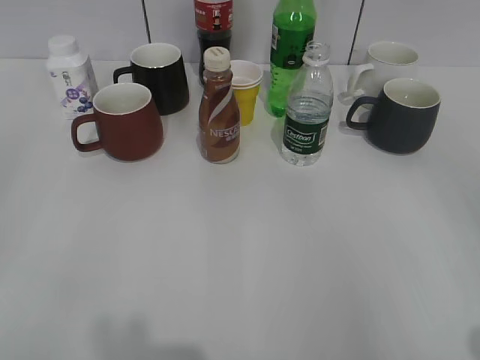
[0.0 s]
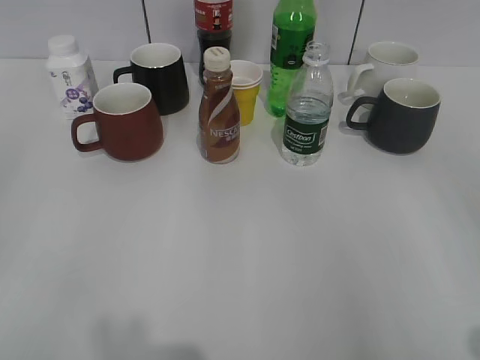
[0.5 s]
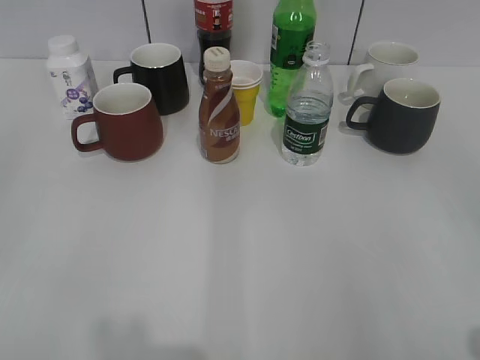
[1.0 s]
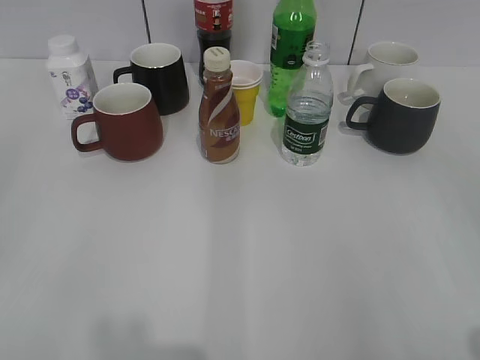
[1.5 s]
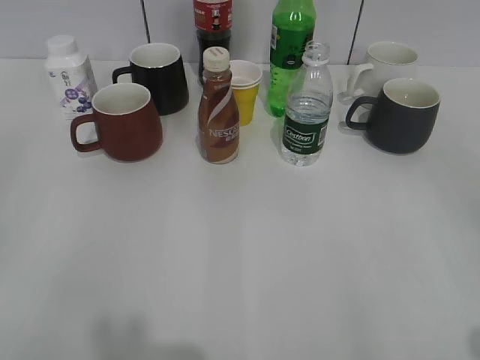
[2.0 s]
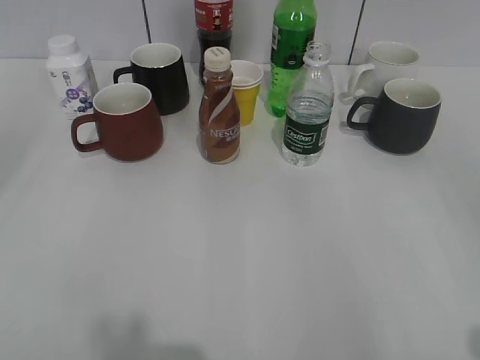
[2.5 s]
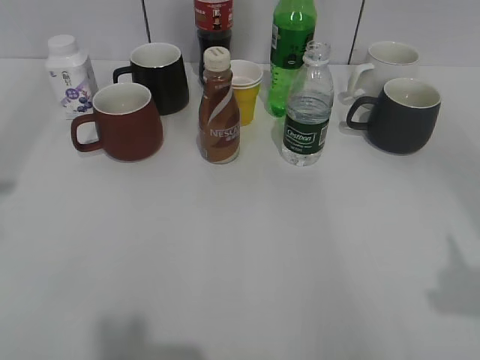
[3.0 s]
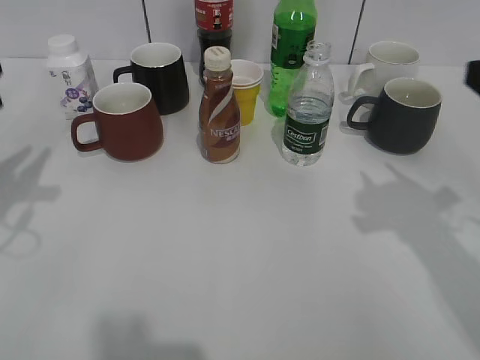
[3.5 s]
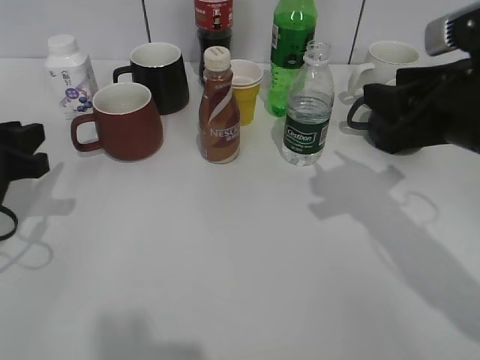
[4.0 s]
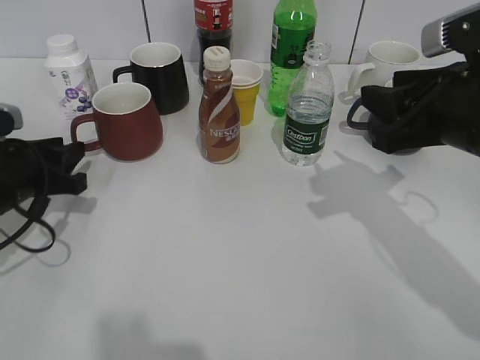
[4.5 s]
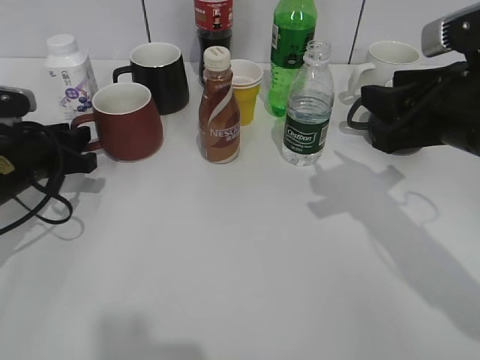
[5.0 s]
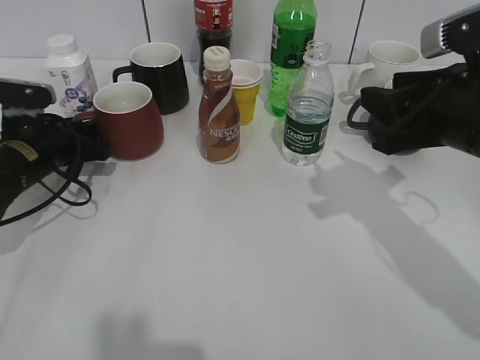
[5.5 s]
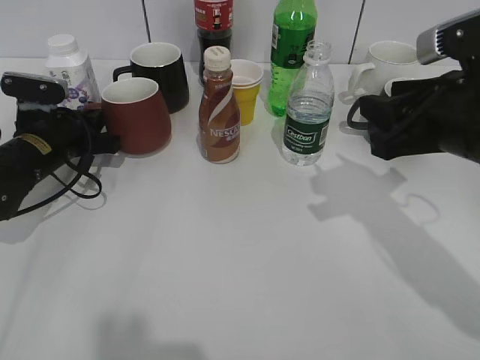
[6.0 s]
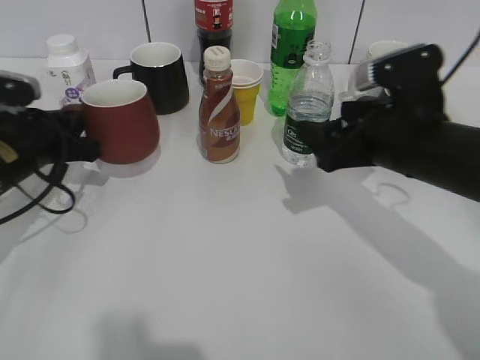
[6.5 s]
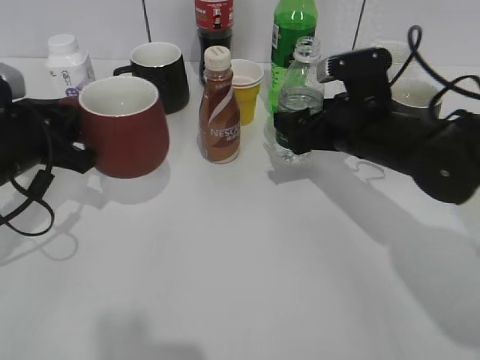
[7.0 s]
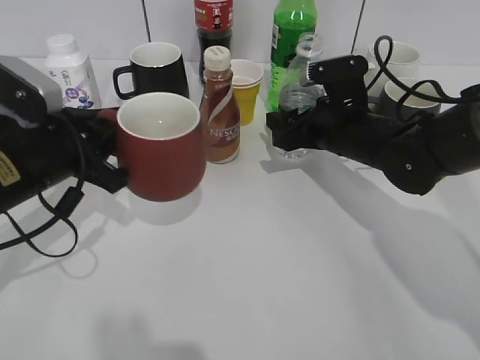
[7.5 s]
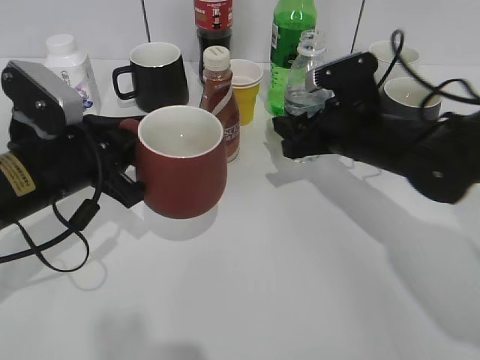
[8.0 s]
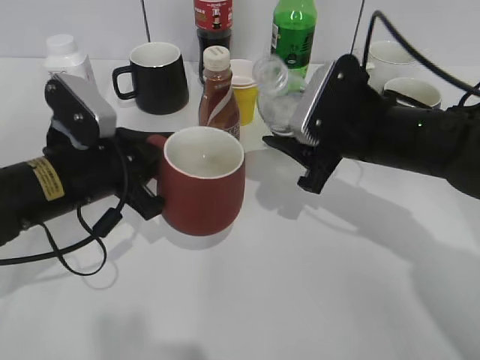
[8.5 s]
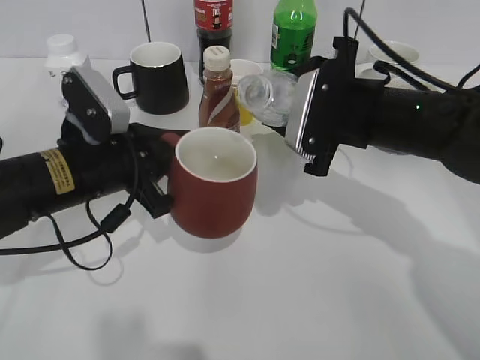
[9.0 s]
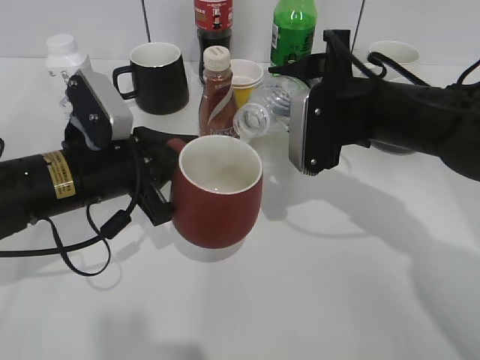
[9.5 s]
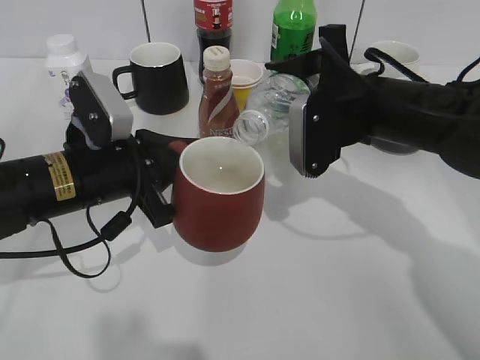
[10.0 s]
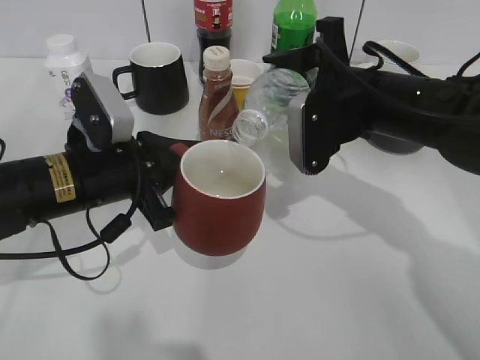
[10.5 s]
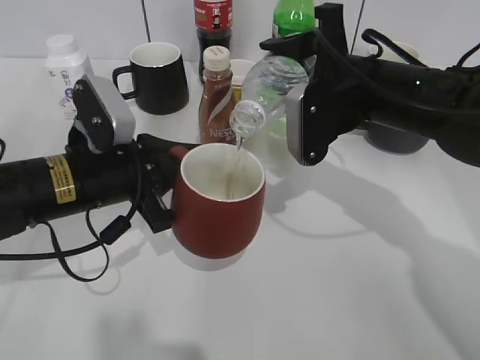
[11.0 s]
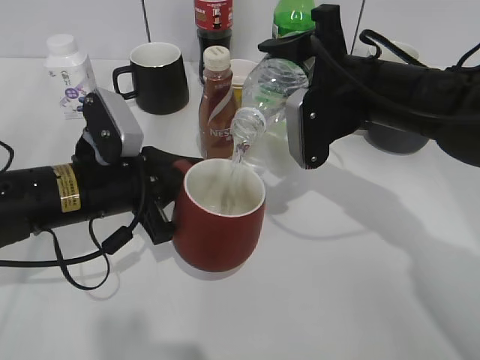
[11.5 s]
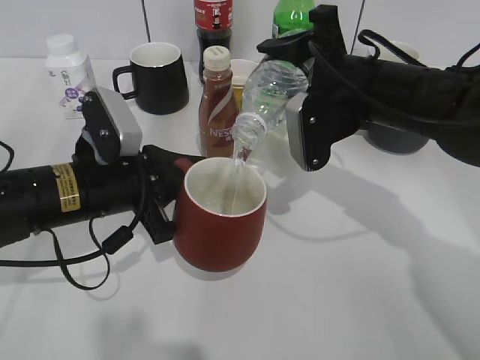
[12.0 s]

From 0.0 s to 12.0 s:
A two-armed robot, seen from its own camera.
Step, from 2.0 s to 5.5 s: Grasp the red cup with left gripper.
From 2.0 s to 4.0 s: The right gripper heads forward and to the left, covering about 25 cm. The left gripper moves forward and downward, roughly 25 cm.
From 4.0 s to 6.0 s: The left gripper shifts roughly 15 cm forward and downward, and closes its fingers.
From 6.0 s to 8.0 s: The left gripper goes approximately 15 cm backward, upward and to the right. Meanwhile the right gripper shifts roughly 15 cm forward, downward and to the left, and opens its fingers.
From 8.0 s to 10.0 s: The right gripper travels upward by about 5 cm.
From 10.0 s to 12.0 s: The grippers make only small movements.

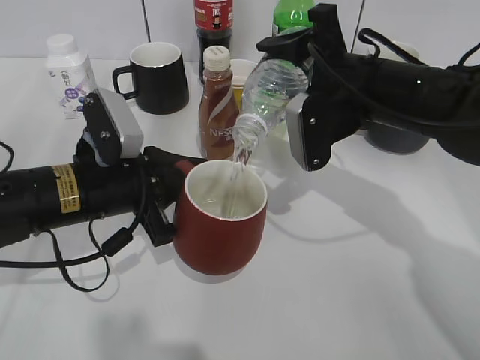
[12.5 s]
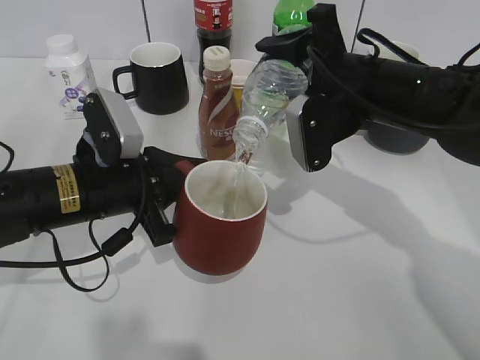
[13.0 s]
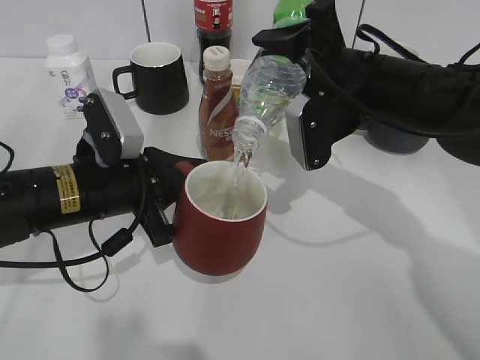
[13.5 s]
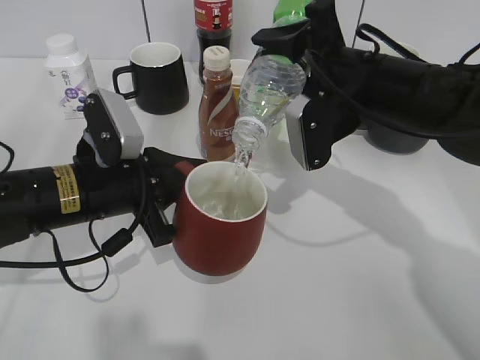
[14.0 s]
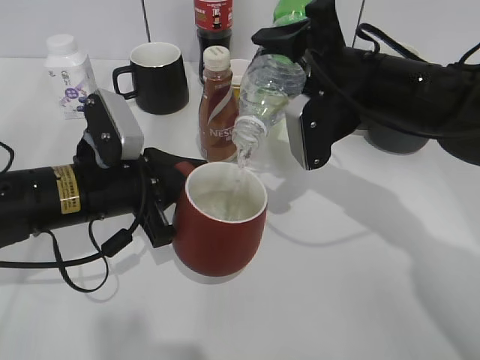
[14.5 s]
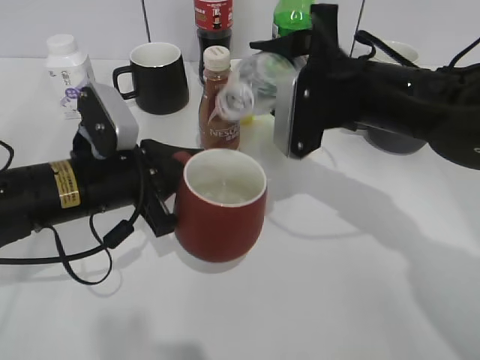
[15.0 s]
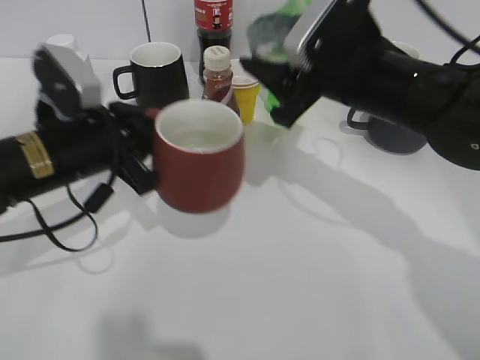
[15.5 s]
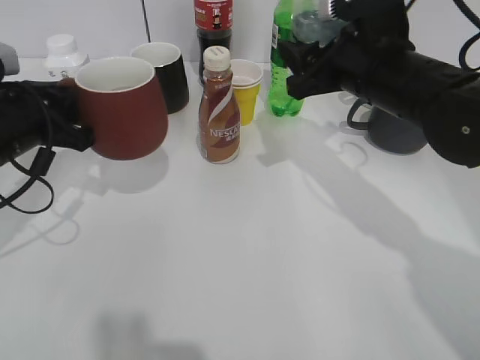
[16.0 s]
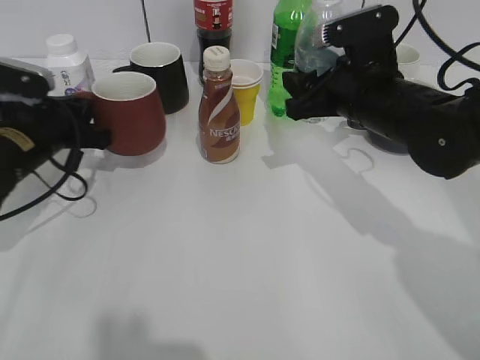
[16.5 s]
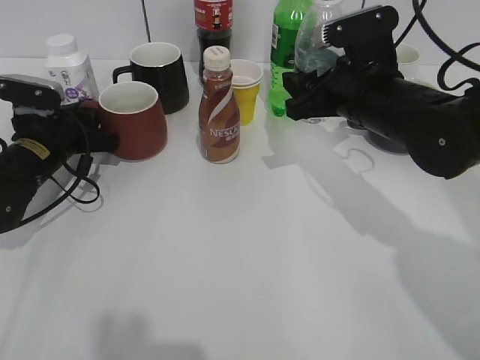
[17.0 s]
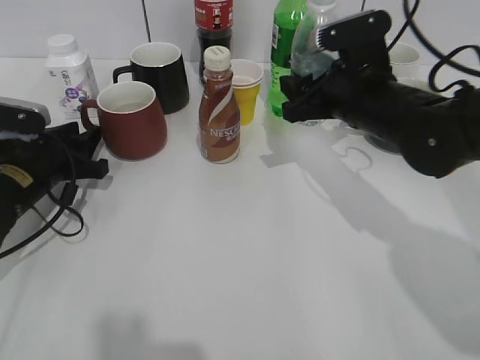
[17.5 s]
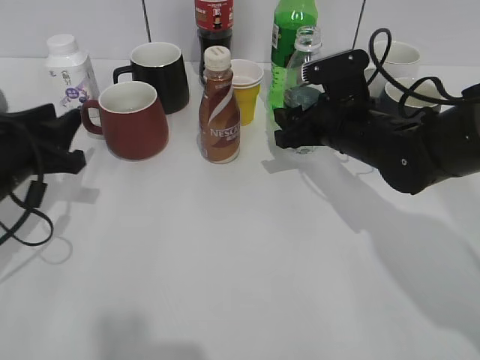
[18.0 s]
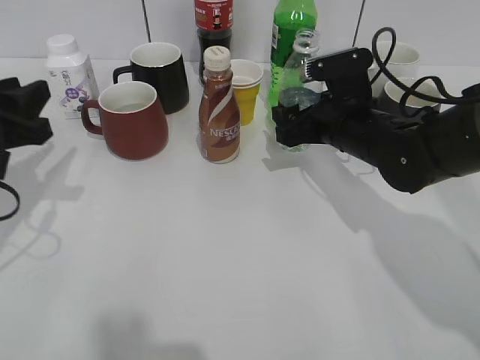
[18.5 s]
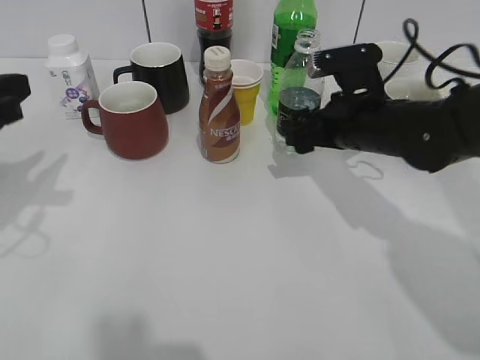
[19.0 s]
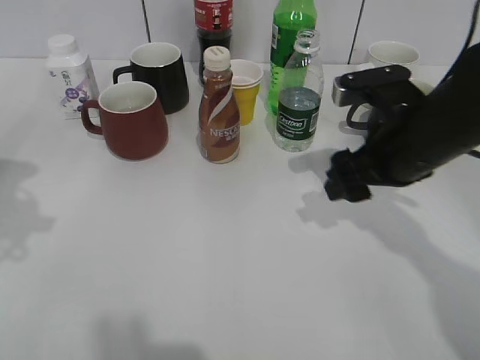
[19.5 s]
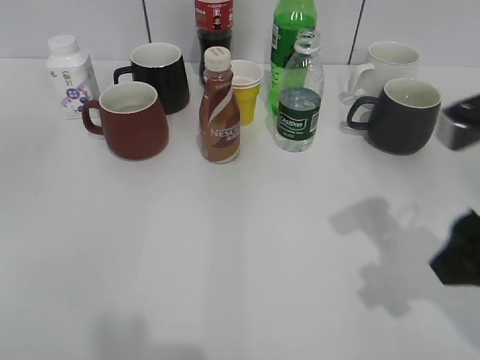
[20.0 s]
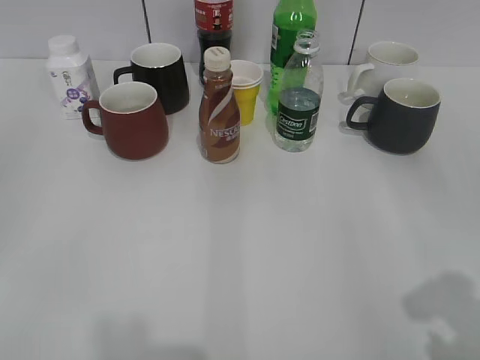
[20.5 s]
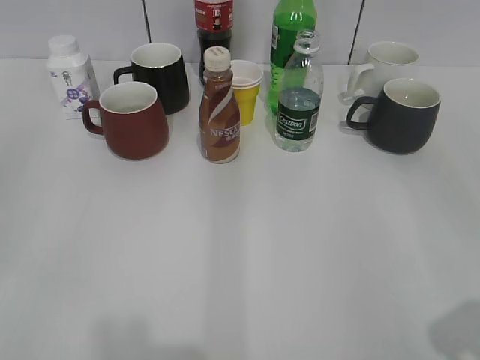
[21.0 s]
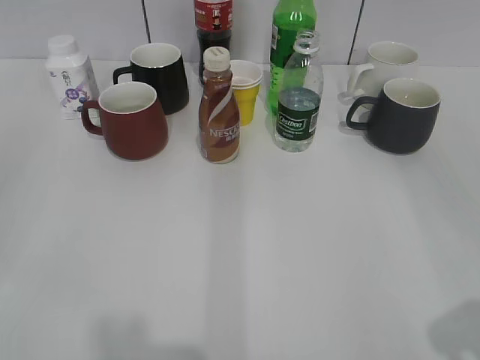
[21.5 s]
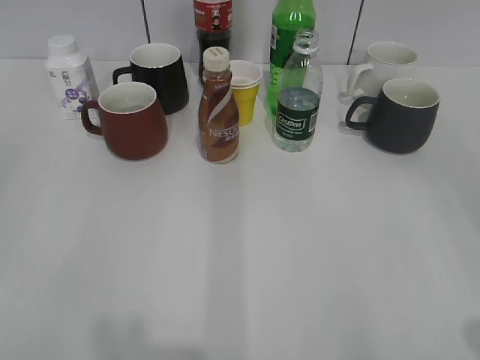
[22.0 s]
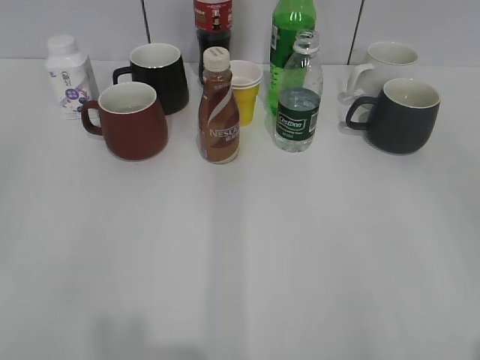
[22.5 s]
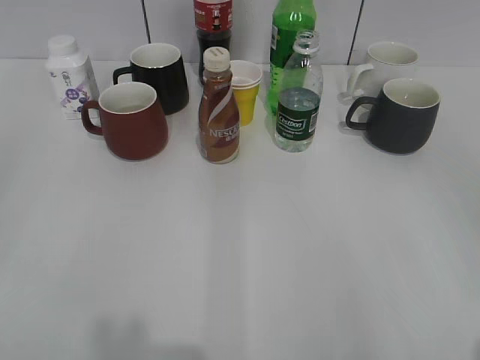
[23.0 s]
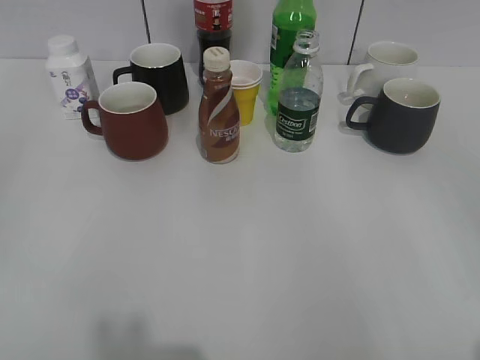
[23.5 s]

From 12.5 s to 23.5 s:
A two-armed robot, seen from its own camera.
Step, from 12.5 s to 15.0 s: Pour the water from bottle to cup with right gripper.
Step, from 15.5 s to 17.0 s: Place the red cup on the table with left gripper.
Step, from 17.5 s to 19.0 s: Place the water bottle on the table with right gripper.
From 12.5 s to 14.5 s: The grippers stay close to where they were, moving slightly.
From 14.5 s to 16.0 s: The left gripper travels to the left by approximately 10 cm.
From 16.0 s to 18.0 s: The left gripper opens its fingers. Meanwhile the right gripper travels downward by about 10 cm.
From 18.0 s to 20.0 s: The right gripper is displaced backward, upward and to the right by approximately 20 cm, and opens; the left gripper is displaced backward and upward by approximately 25 cm.
From 20.0 s to 21.5 s: The right gripper shifts approximately 15 cm backward and to the right.
